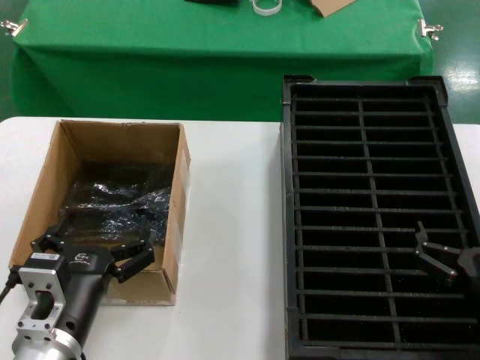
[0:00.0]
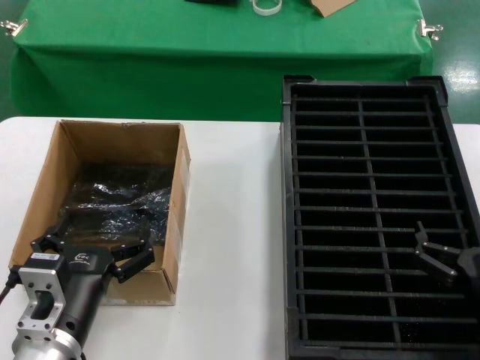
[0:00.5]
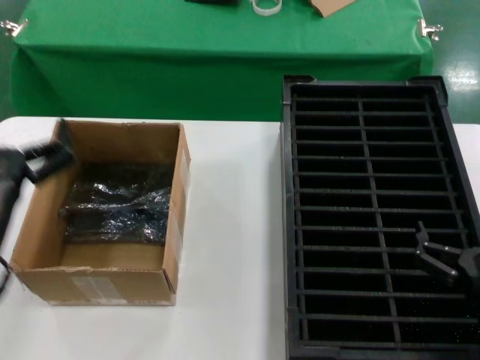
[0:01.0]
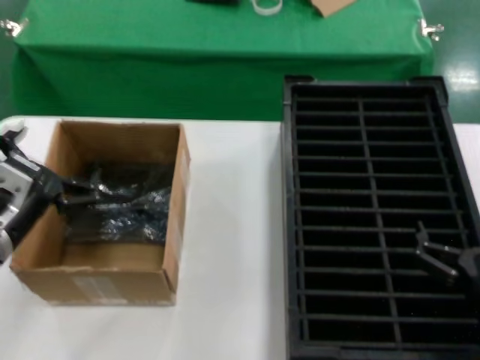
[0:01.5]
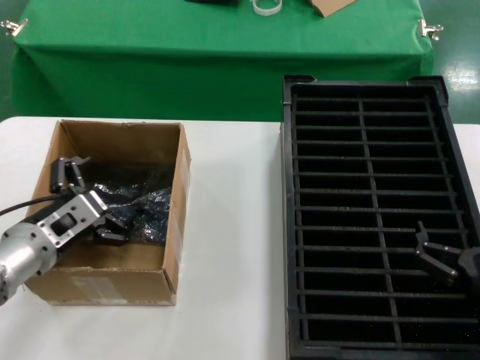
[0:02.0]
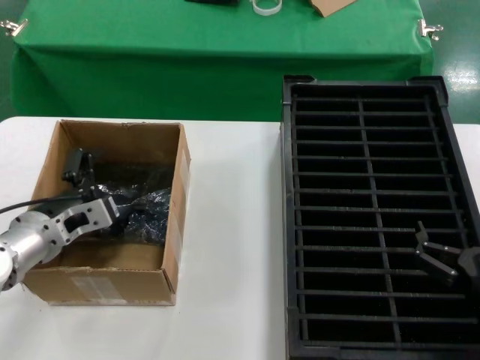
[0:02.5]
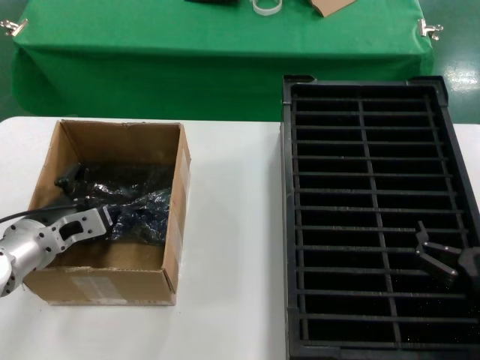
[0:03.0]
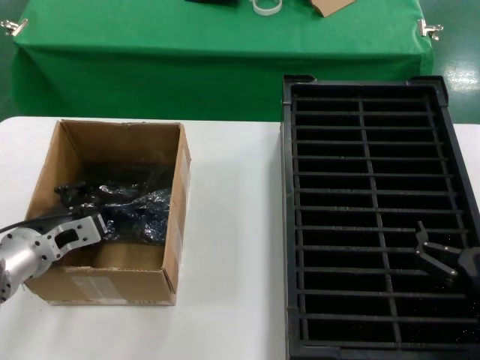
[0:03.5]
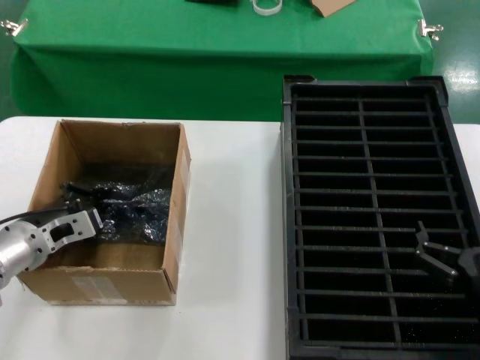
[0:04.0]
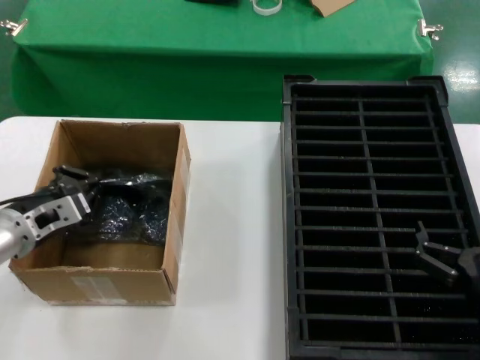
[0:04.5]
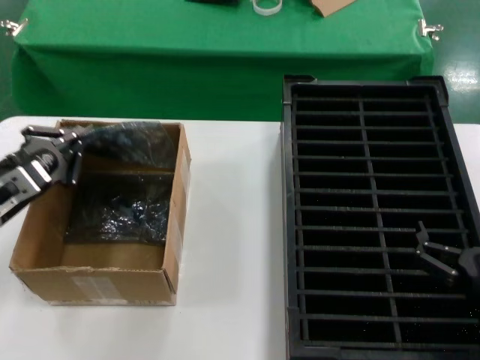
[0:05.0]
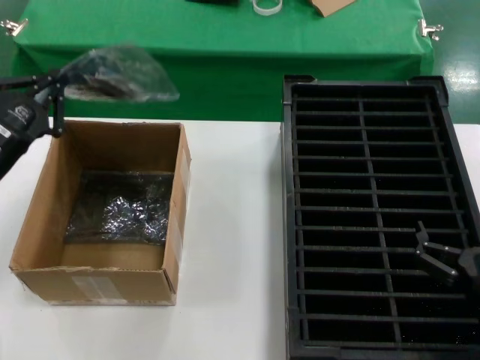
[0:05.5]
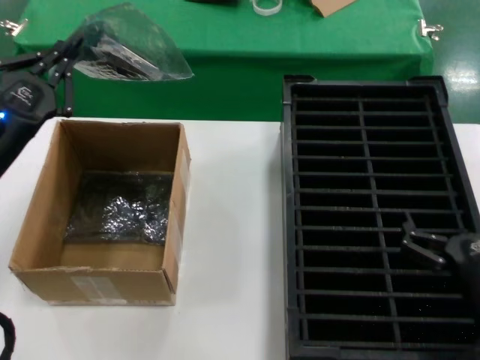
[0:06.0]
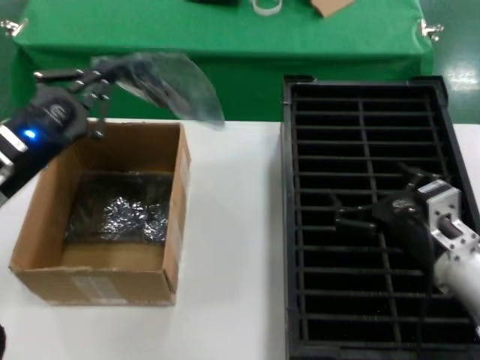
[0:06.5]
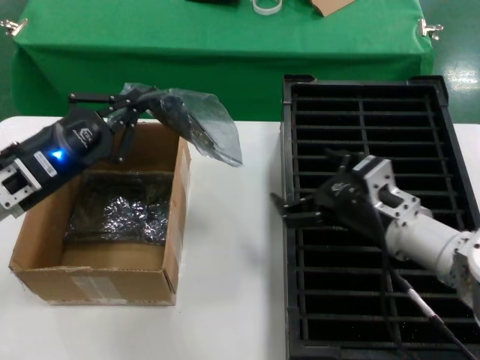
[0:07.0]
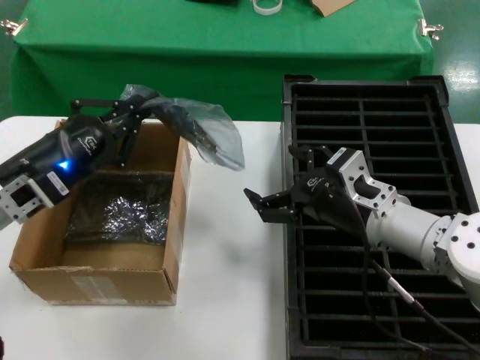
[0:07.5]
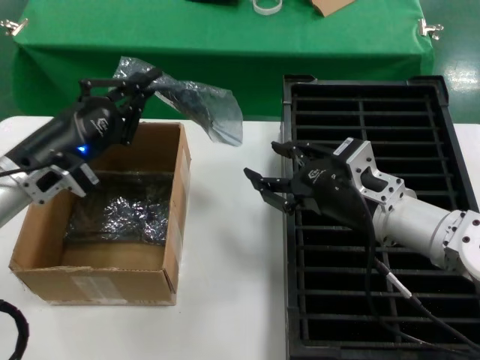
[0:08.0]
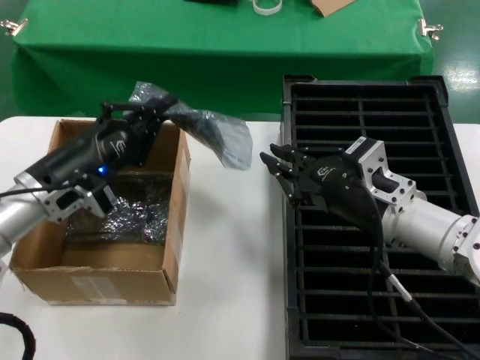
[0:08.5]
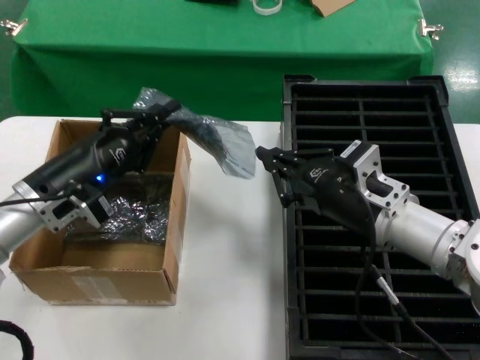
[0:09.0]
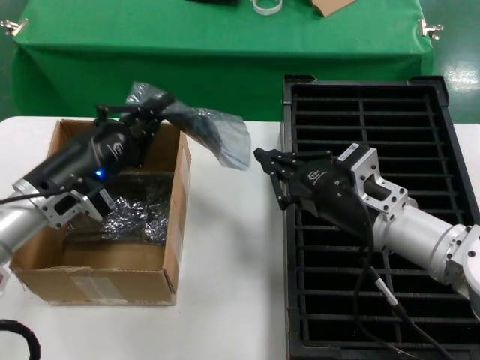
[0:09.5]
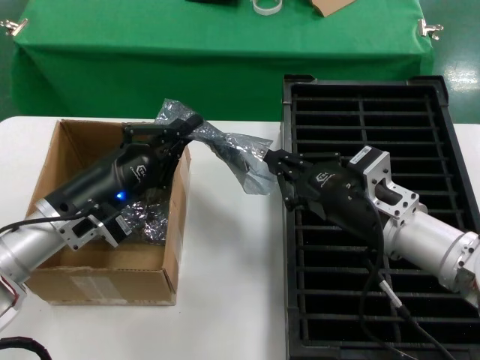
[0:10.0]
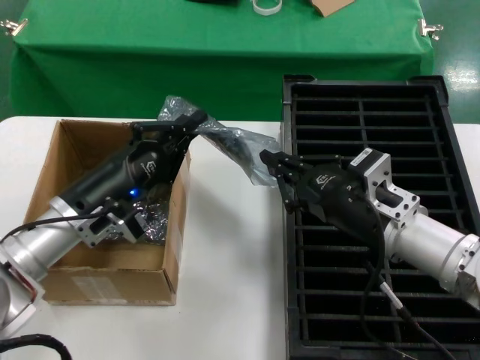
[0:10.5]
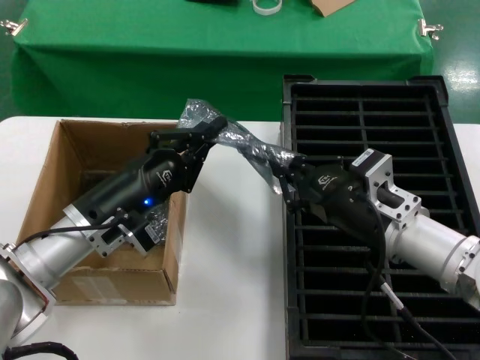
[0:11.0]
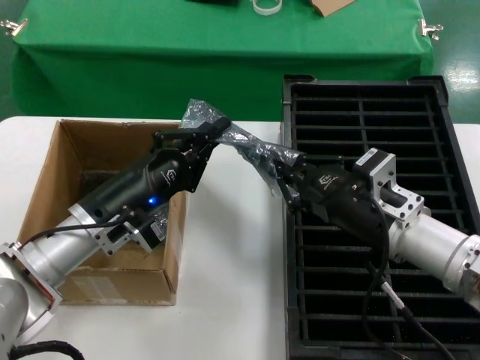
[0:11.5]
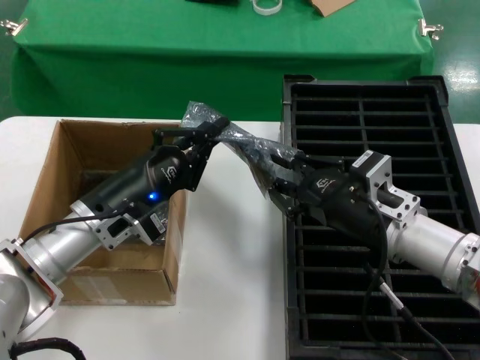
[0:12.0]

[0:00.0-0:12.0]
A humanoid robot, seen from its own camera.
Task of the whole recording: take out graphics card from box remove packaging put into black container.
Step, 0:00.0 to 0:04.0: Grasp the bag.
Step, 0:04.5 to 0:06.0: Lift the bag.
0:00.0 to 0:02.0: The left hand travels forward, to the left and upward by some 15 cm.
0:02.0 to 0:04.0: The left hand travels forward by some 5 cm.
0:04.0 to 0:06.0: The left hand travels upward by roughly 10 cm.
0:06.0 to 0:08.0: The right hand goes approximately 20 cm forward, upward and to the left.
0:08.0 to 0:10.0: The left hand shifts approximately 5 cm downward.
0:10.0 to 0:12.0: The hands make only small movements.

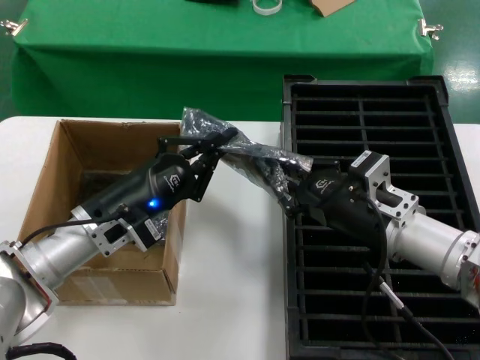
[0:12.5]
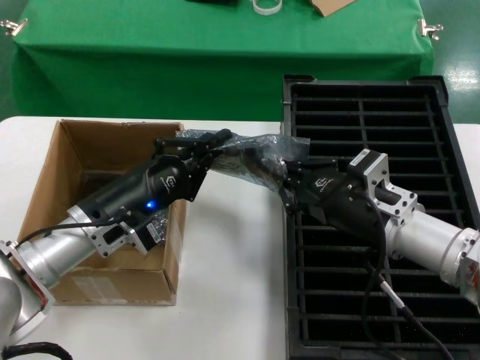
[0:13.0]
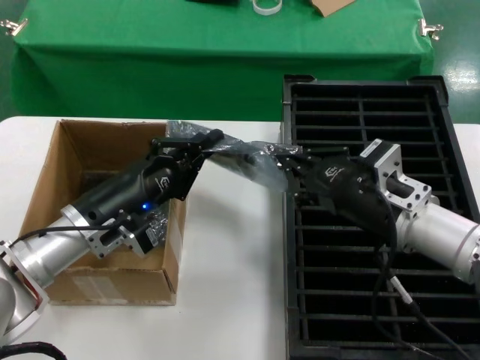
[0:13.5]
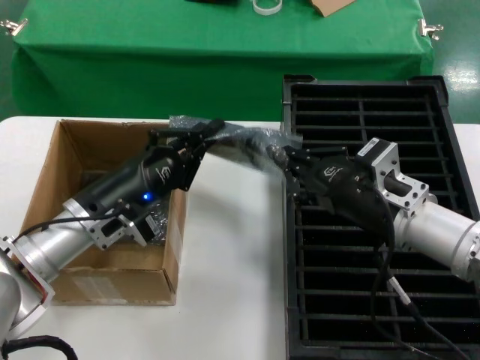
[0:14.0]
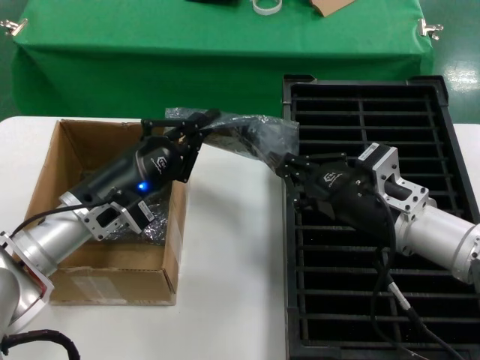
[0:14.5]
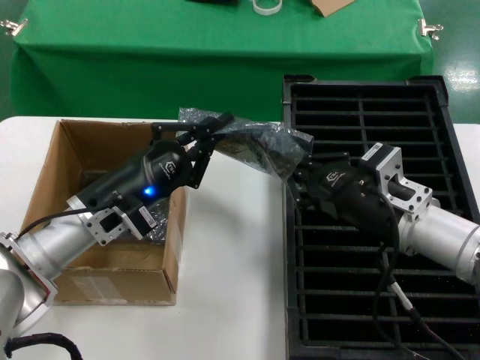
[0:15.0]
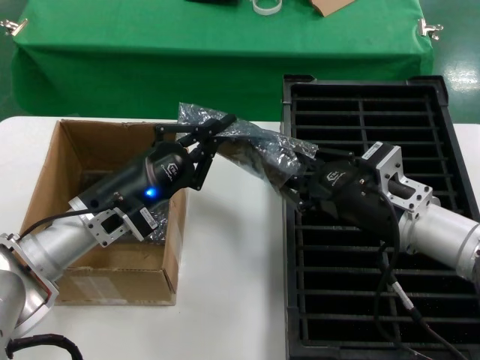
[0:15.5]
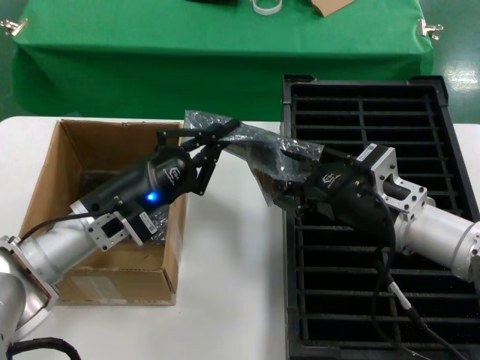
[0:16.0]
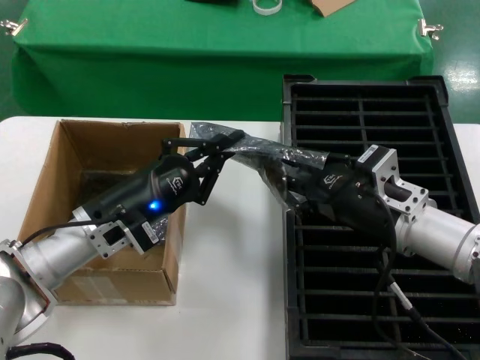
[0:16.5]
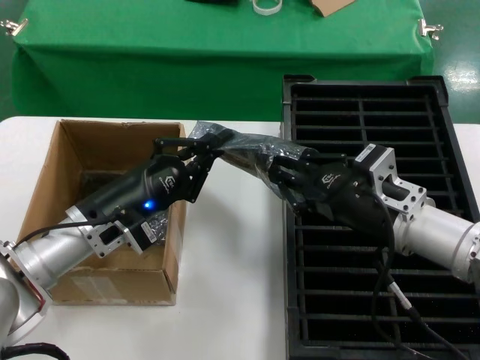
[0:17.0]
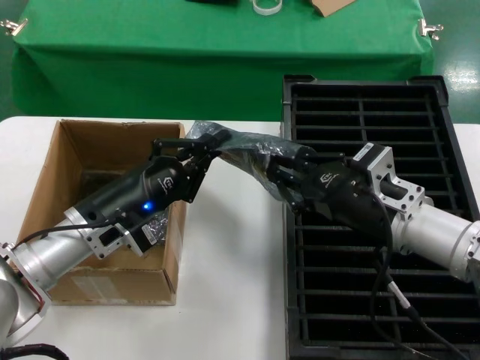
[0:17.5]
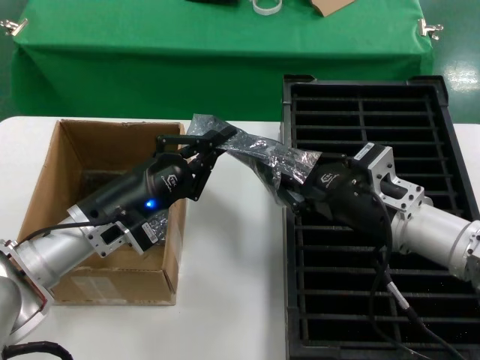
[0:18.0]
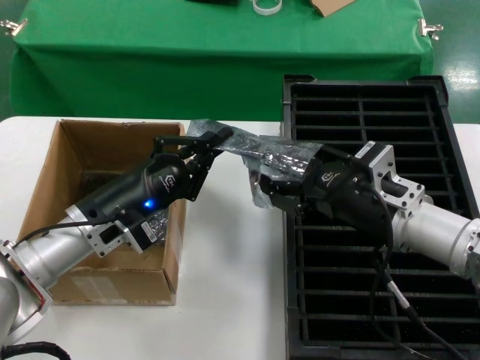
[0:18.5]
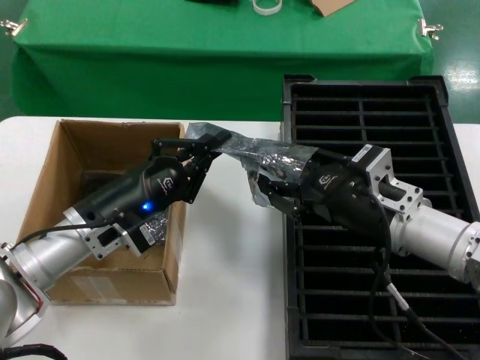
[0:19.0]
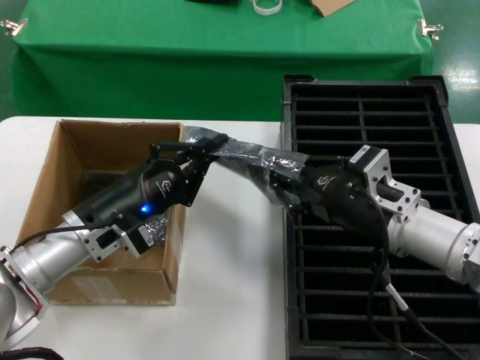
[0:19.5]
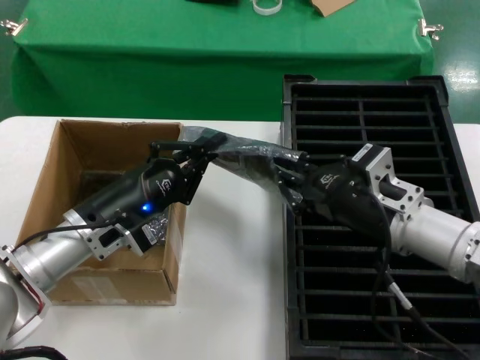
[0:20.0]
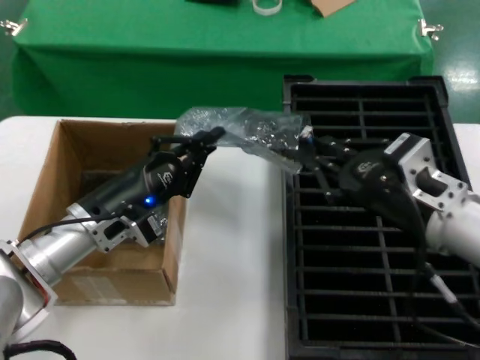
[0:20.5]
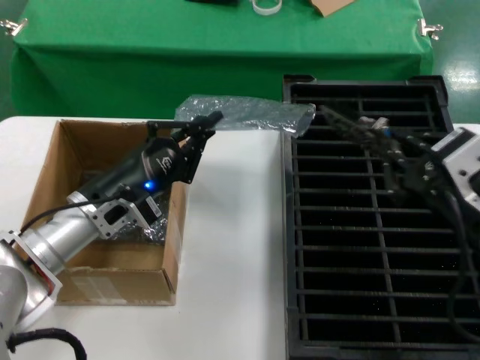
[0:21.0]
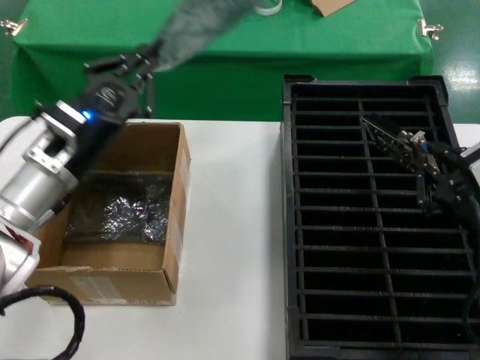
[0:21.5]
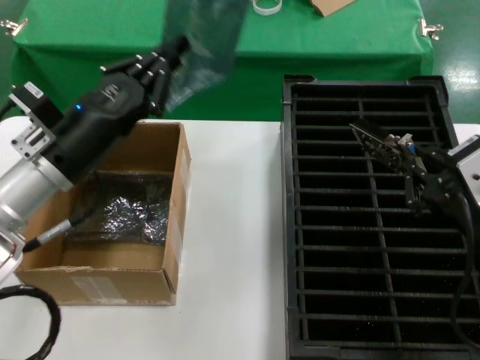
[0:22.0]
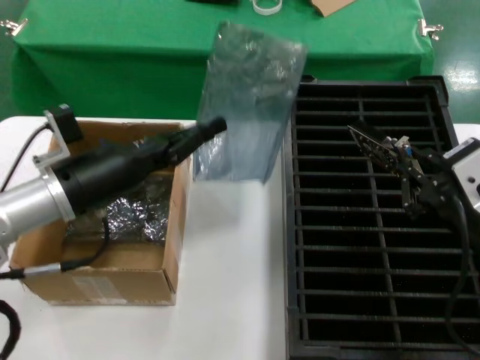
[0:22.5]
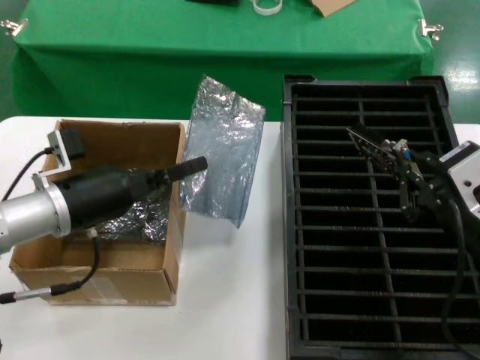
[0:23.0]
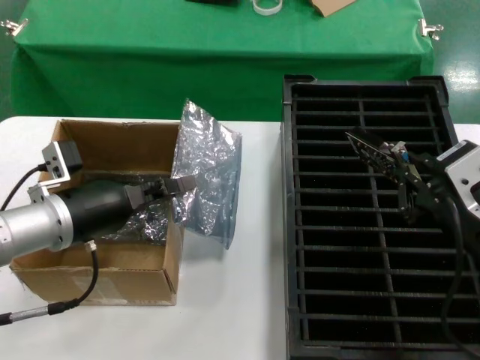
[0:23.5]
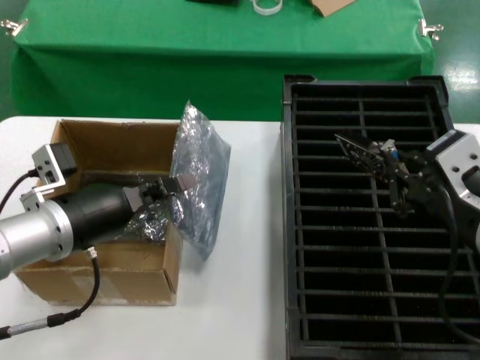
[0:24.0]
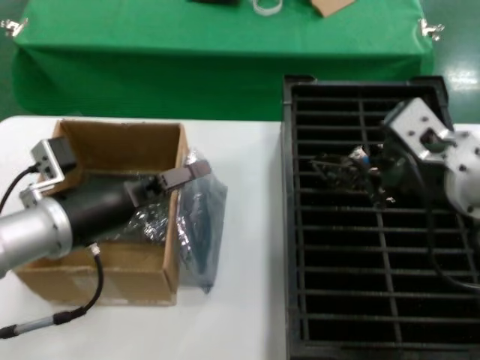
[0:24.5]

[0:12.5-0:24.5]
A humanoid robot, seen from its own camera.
Task of the whole recording: take out graphics card from box remove packaging put into black container.
Step, 0:12.5 to 0:21.0: Take out the hard disk of the bag.
0:12.5 to 0:18.5: There are only small adjustments of the hands.
0:18.5 to 0:20.5: The right hand ends up roughly 5 cm from where it was.
0:20.5 to 0:22.5: The left hand moves upward, some 5 cm; the right hand heads backward, covering about 10 cm.
0:22.5 to 0:24.5: The right hand moves forward and upward, some 10 cm. Meanwhile the left hand shifts about 10 cm backward.

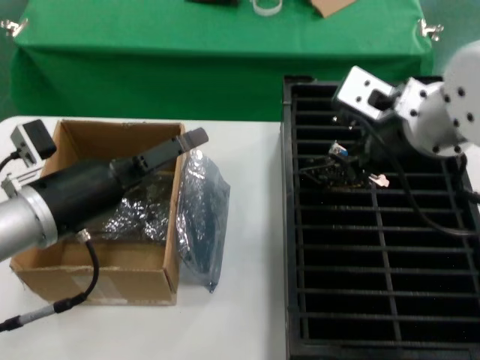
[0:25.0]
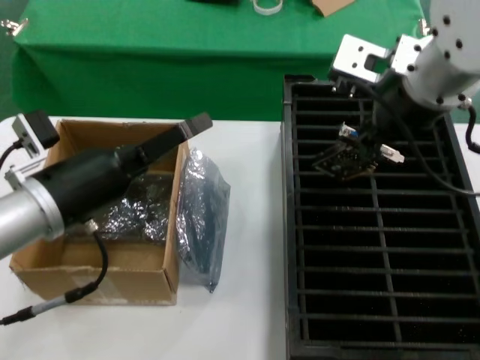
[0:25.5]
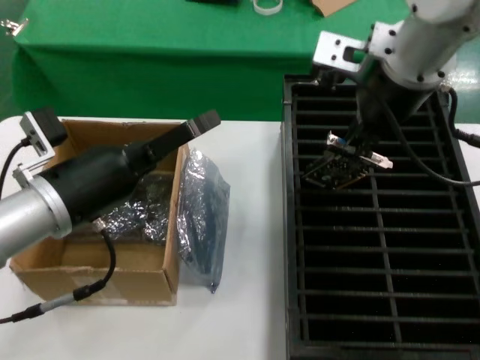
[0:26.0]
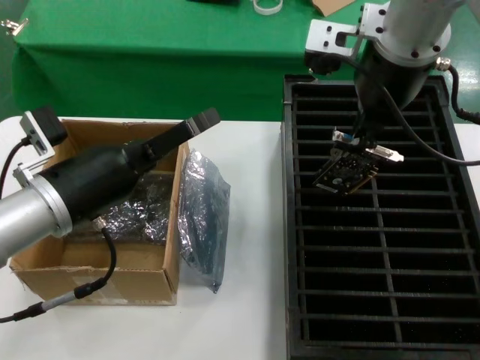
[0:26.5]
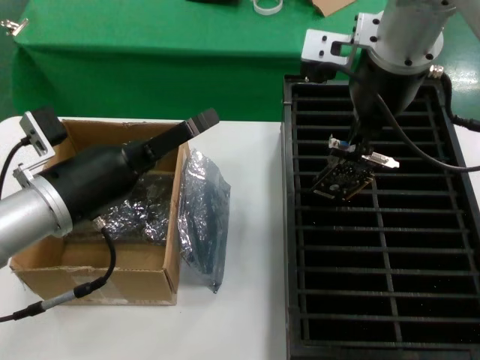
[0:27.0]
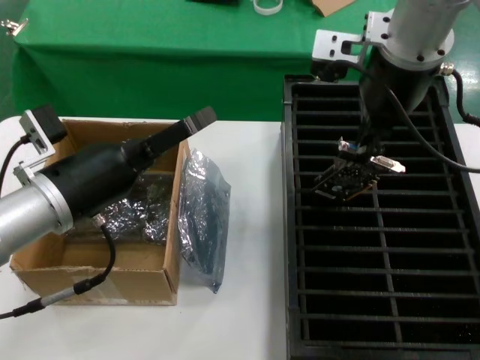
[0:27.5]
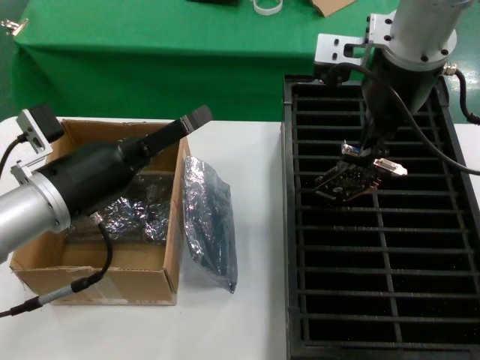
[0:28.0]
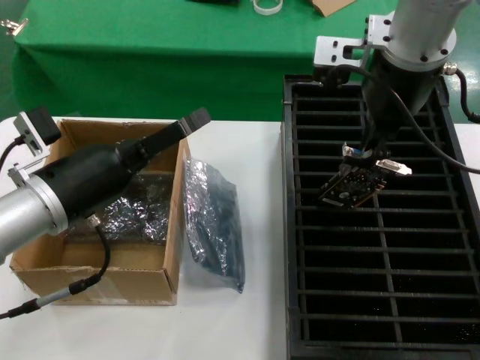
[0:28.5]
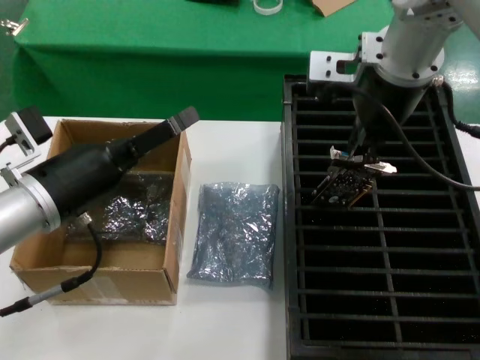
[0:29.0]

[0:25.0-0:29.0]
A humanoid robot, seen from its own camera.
Task of the whole recording: take out graphics card from box remove packaging put into black container.
0:25.0 to 0:27.0: The right hand travels upward and forward by about 10 cm.
0:27.0 to 0:29.0: The hands stay close to where they were, moving slightly.
